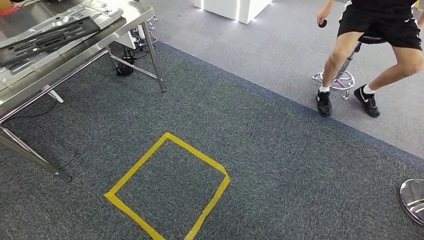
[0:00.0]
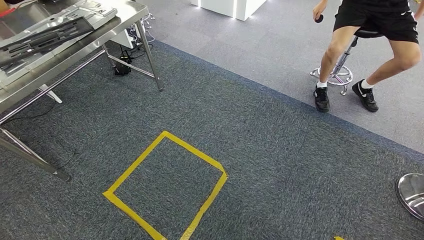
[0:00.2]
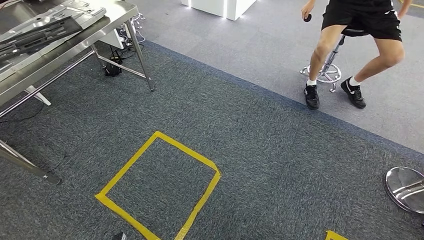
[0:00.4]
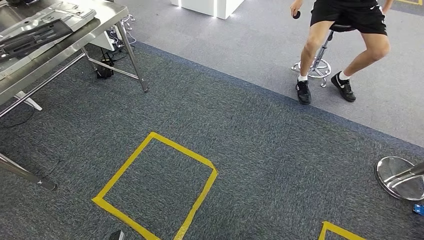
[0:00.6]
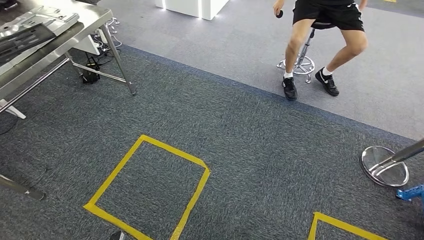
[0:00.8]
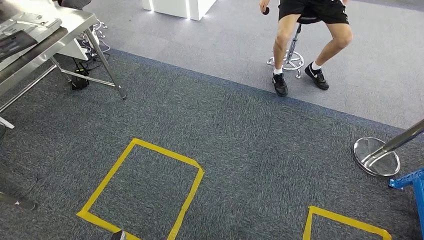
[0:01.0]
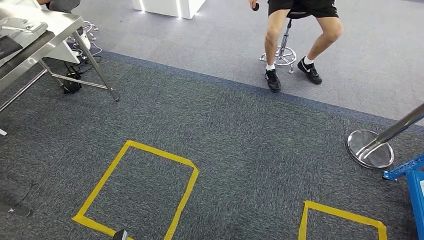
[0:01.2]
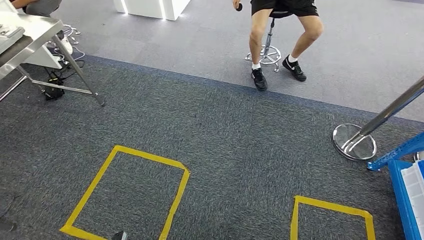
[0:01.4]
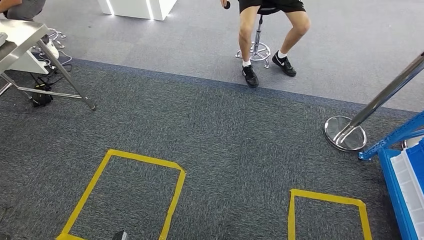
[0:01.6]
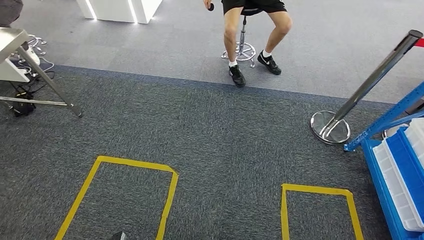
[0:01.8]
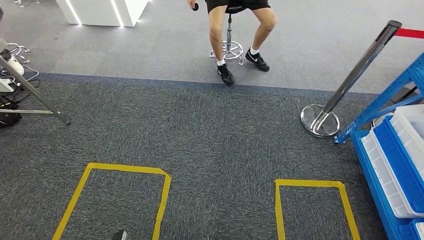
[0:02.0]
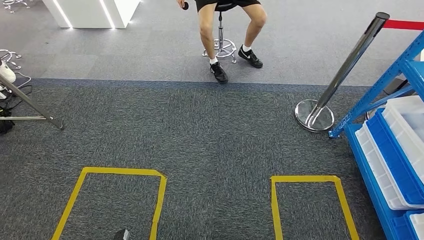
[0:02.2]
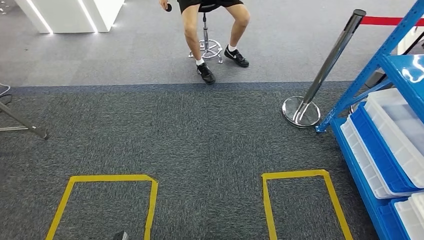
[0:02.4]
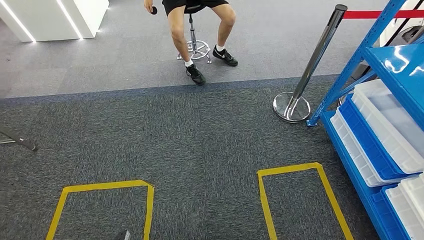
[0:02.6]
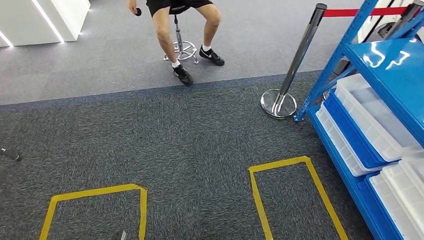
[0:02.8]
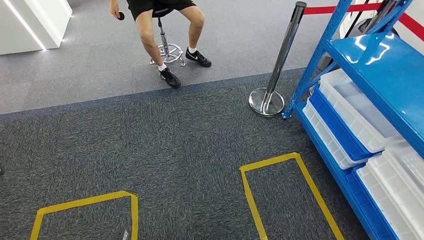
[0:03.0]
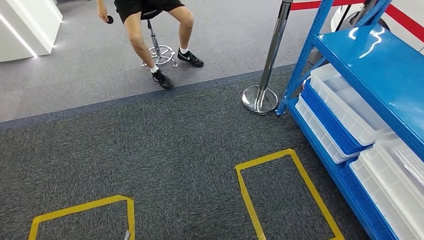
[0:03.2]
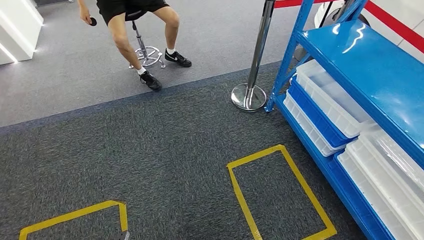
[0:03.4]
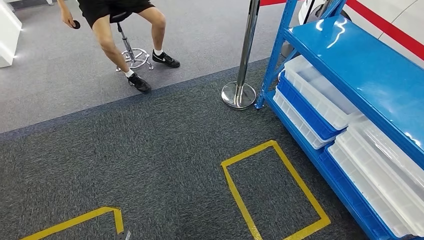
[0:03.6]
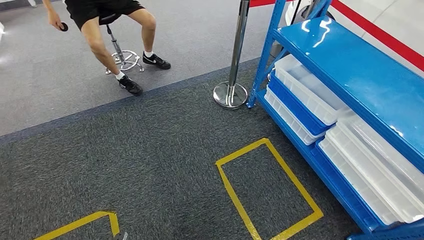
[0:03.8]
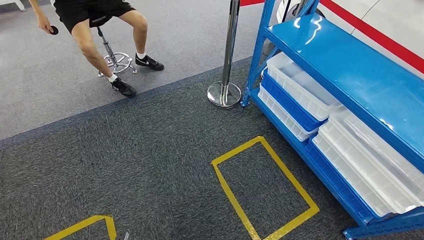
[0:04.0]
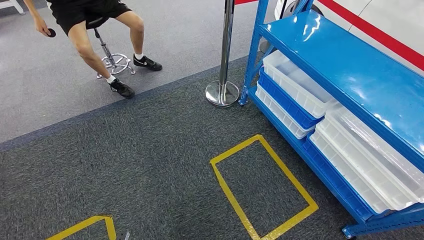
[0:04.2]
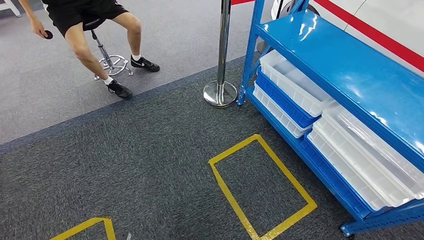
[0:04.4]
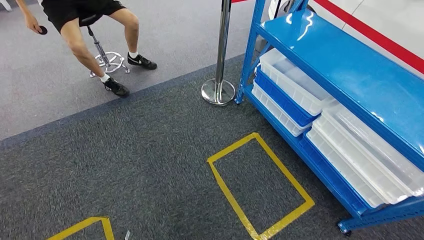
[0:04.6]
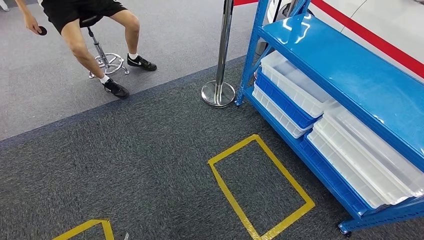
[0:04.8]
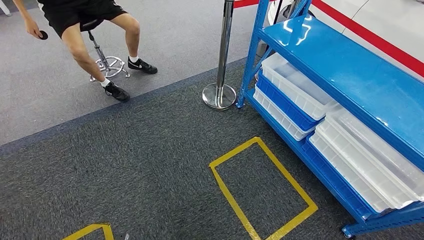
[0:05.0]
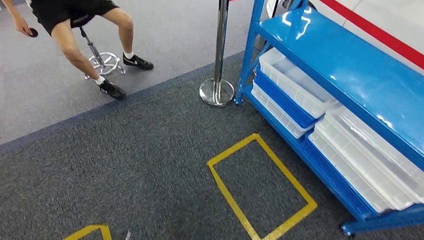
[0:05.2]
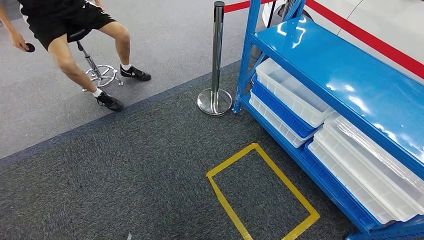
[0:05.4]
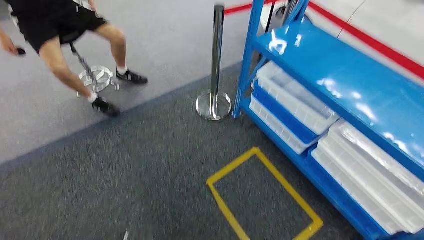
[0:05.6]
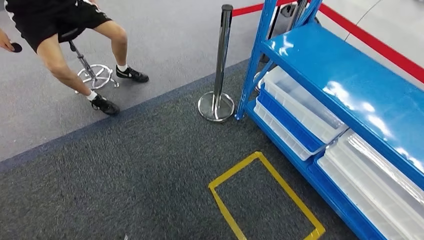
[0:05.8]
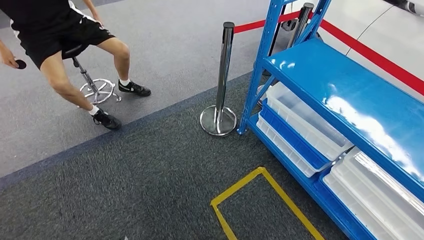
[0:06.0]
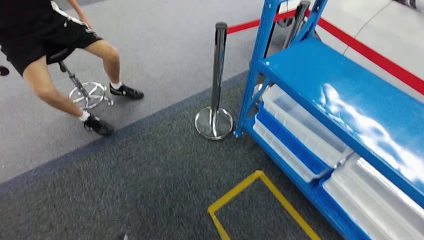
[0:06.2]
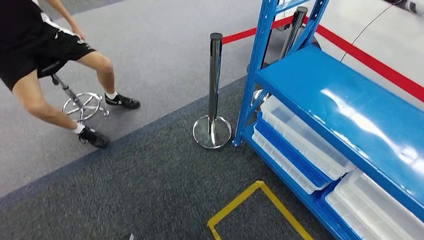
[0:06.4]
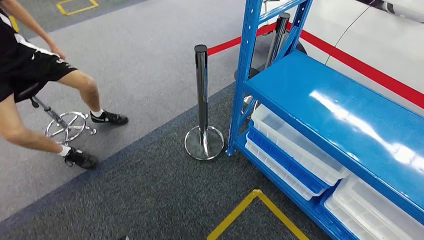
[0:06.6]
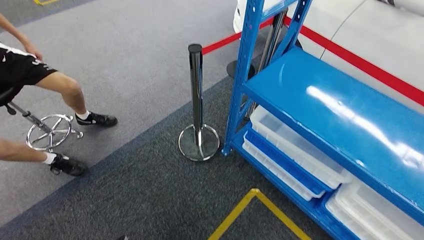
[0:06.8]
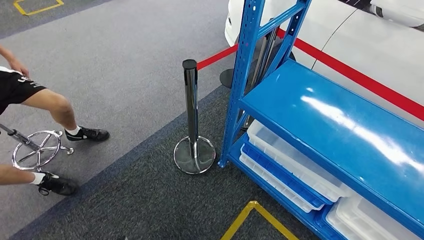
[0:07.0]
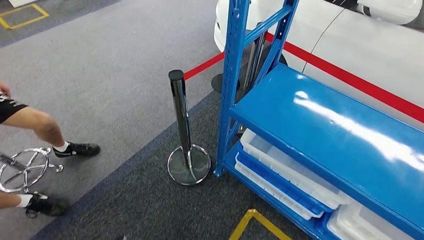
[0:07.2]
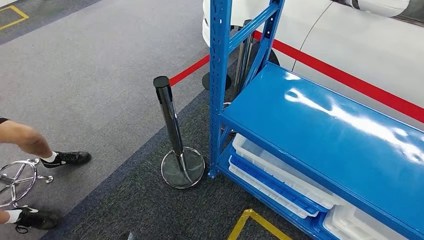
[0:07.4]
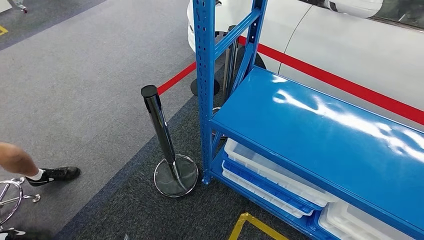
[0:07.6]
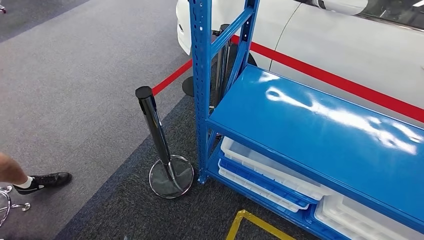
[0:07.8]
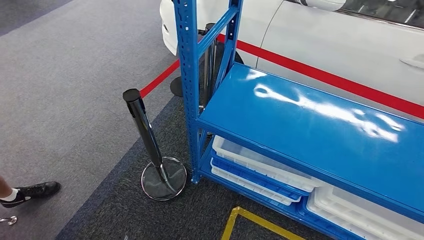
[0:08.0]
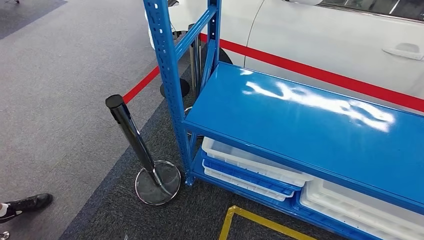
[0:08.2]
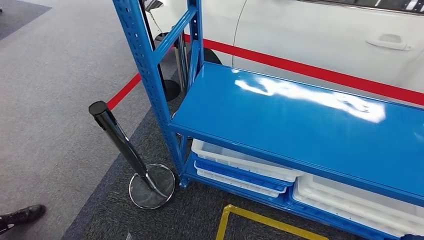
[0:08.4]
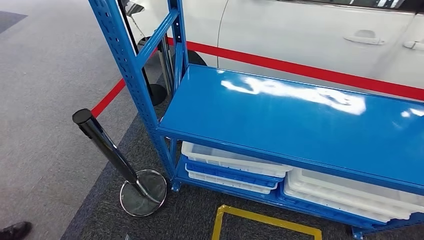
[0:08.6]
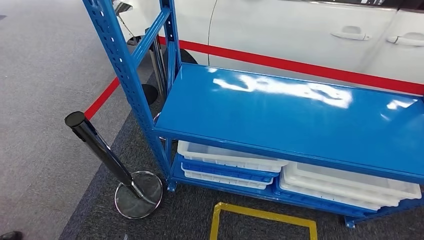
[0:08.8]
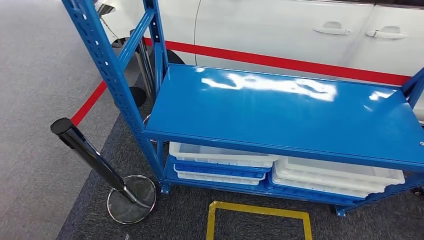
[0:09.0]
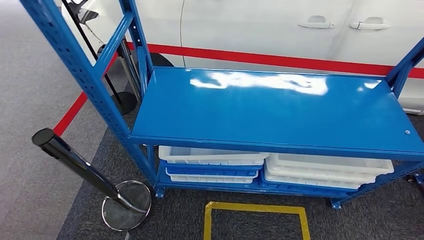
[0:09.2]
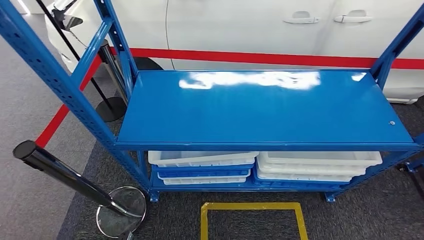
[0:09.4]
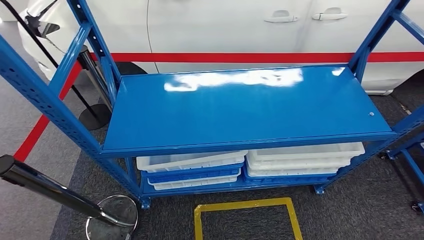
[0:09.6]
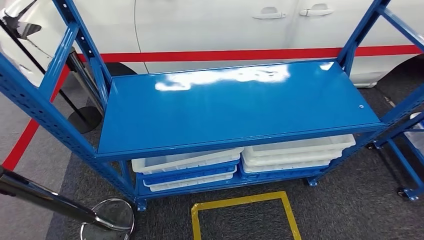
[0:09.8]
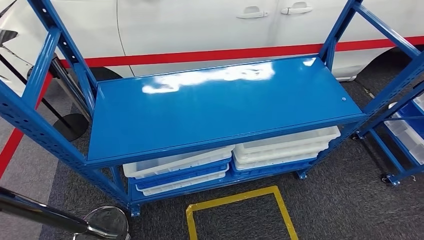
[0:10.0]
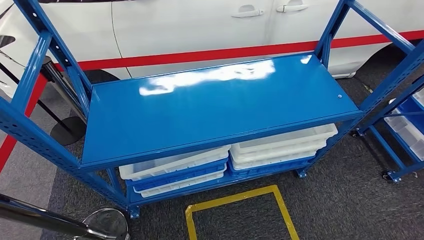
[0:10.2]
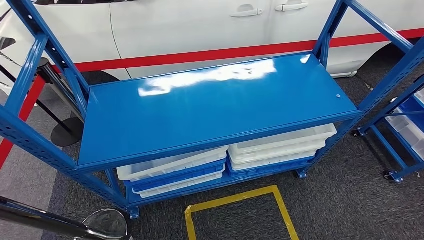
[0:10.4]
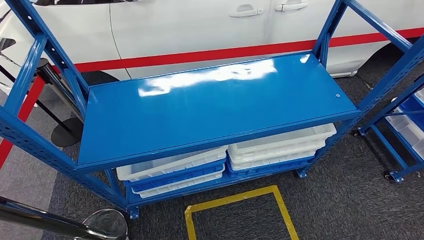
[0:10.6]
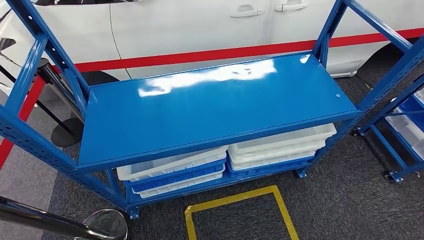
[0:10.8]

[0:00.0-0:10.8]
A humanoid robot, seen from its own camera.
Step, 0:00.0 to 0:10.6: Return to the initial position at the shelf.
